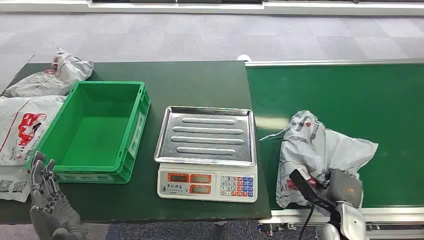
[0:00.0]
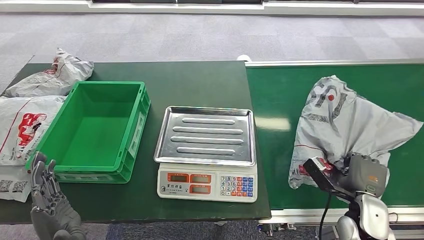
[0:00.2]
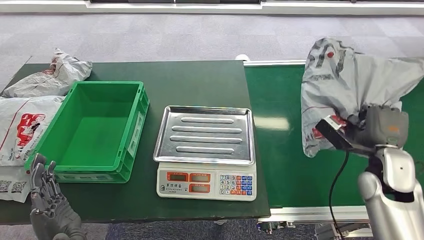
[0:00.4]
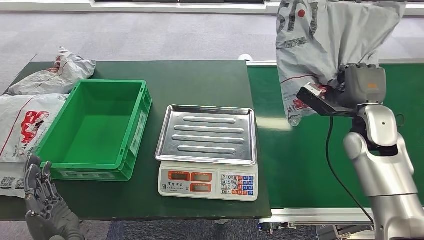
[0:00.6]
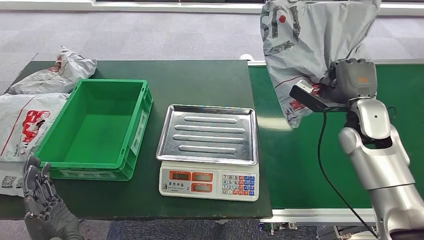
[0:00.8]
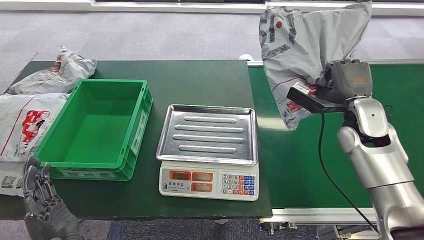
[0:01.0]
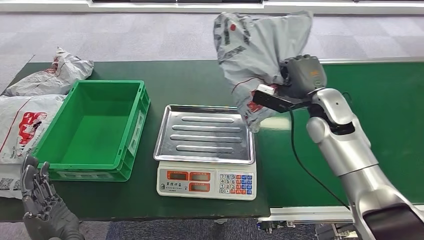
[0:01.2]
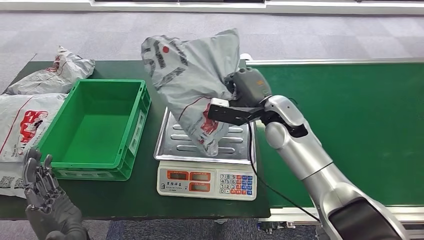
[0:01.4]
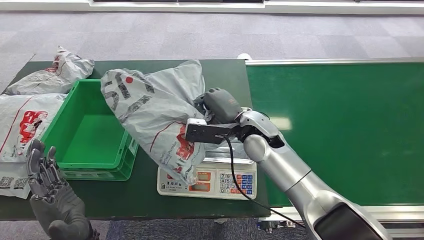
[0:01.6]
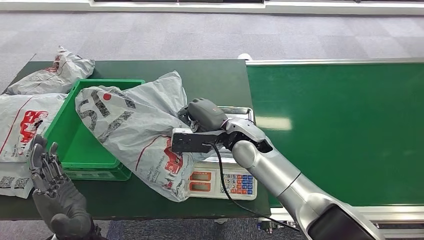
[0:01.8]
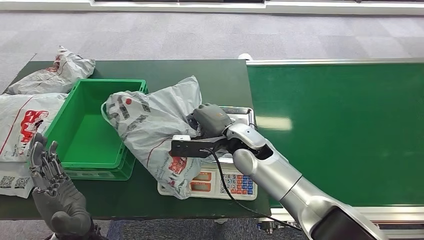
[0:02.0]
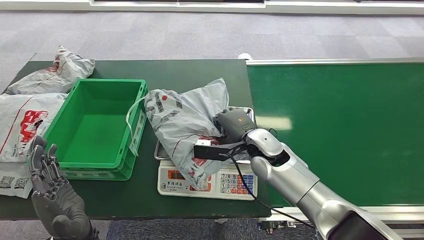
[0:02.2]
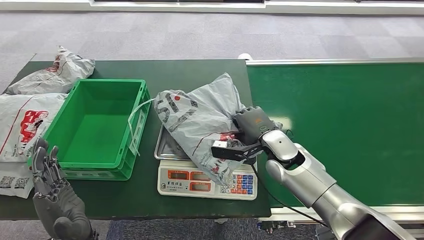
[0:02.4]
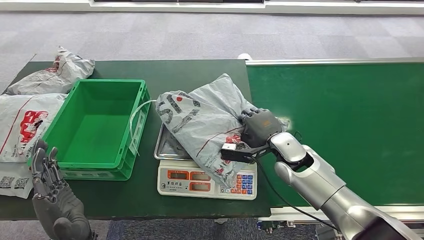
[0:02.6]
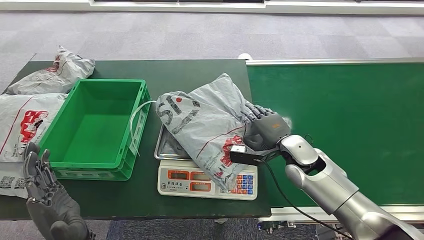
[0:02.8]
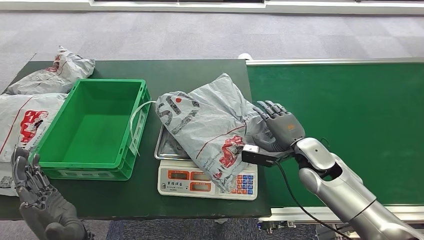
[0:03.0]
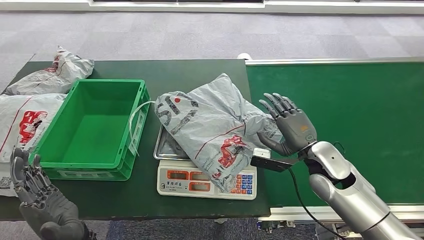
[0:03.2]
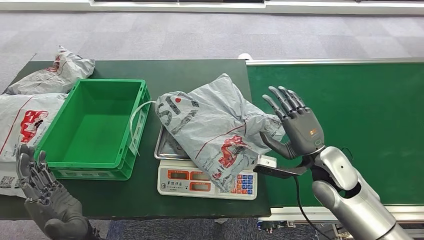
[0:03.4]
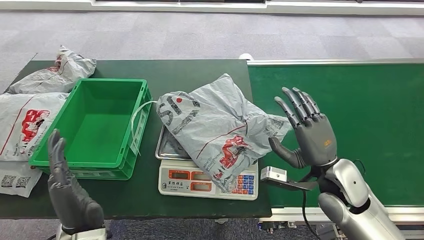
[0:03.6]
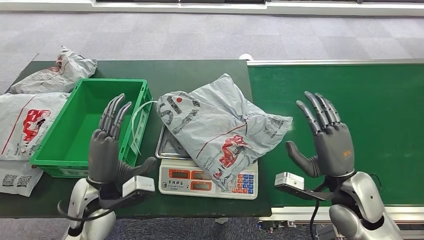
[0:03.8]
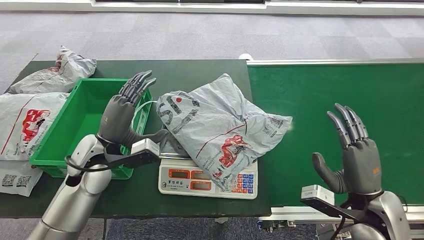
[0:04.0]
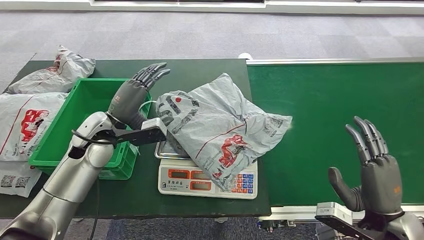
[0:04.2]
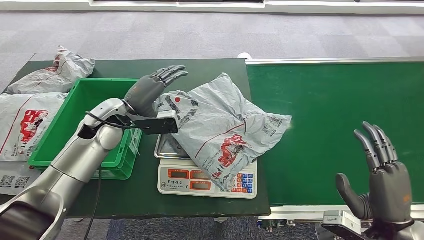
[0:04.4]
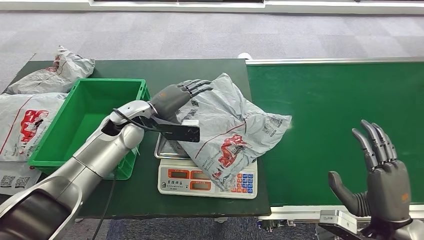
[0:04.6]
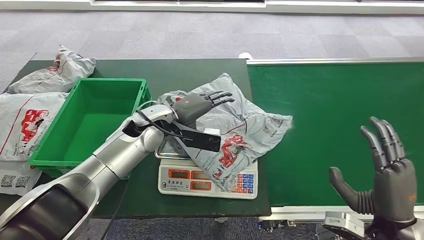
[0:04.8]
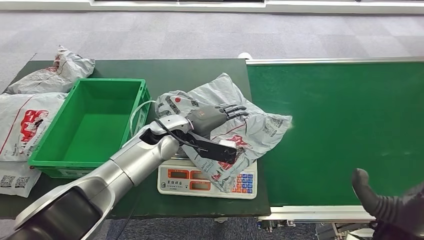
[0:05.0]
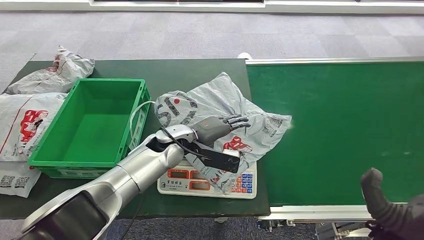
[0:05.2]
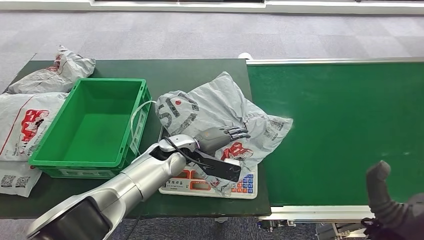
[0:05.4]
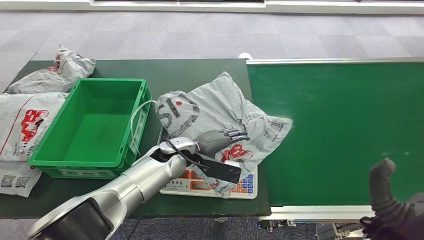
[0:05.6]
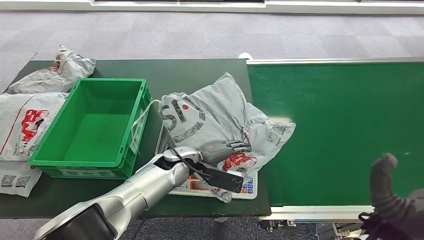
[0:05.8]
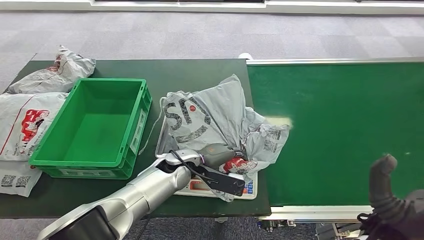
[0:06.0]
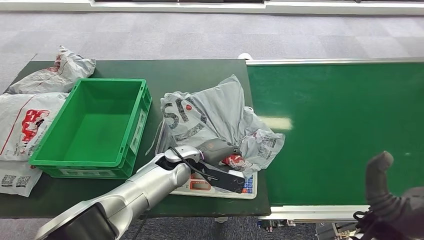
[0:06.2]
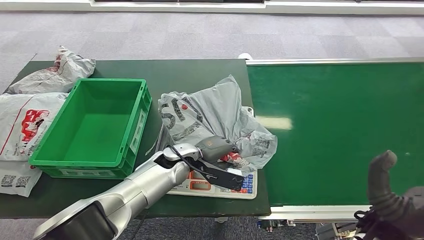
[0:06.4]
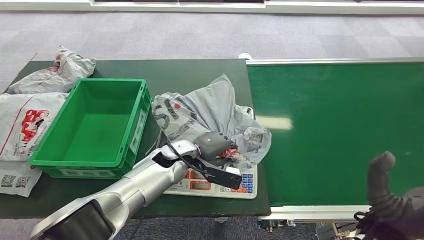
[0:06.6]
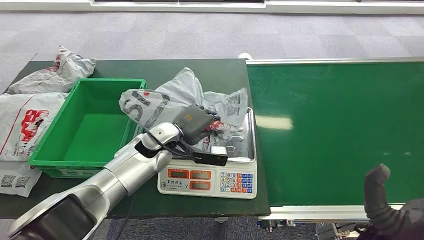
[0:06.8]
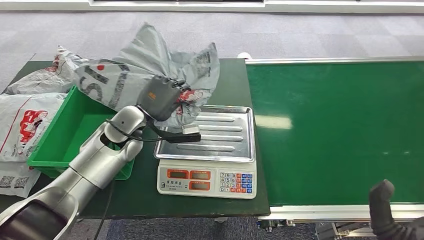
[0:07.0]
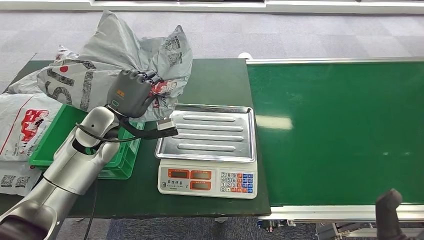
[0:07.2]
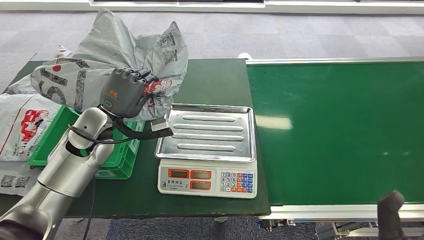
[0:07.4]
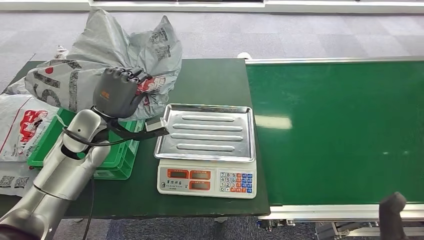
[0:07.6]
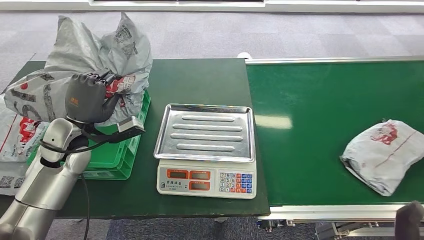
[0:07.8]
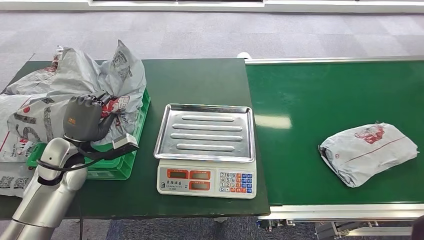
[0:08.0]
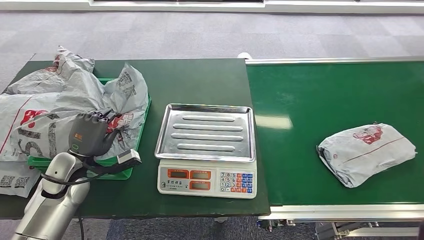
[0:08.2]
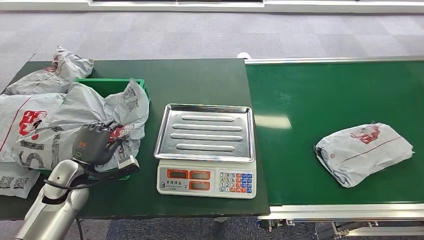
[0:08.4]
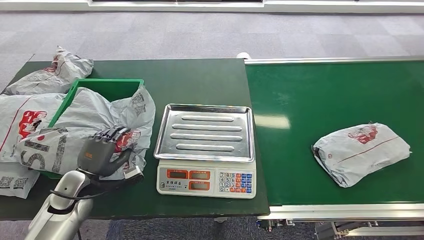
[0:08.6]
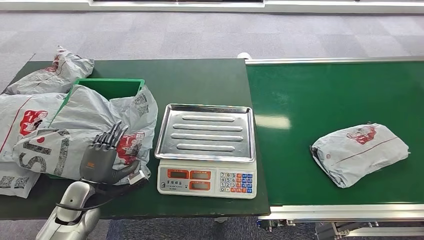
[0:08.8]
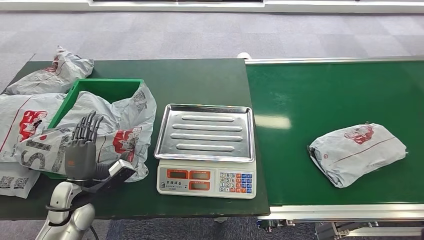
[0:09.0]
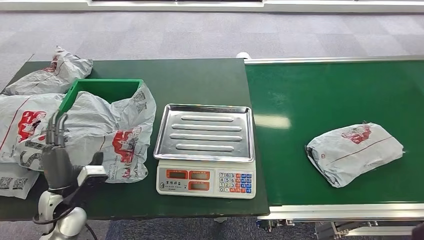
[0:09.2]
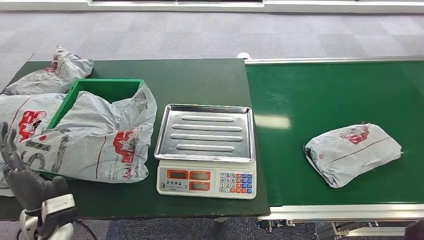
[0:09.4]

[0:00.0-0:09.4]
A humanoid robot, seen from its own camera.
Step, 0:00.0 to 0:00.6: Pick up the package from the conveyor belt.
Step, 0:01.0 to 0:03.6: Place the package onto the inbound machine.
Step, 0:03.8 to 0:07.2: Pick up the package from the inbound machine.
Step, 0:07.4 to 0:09.4: Place the package into the parcel locker.

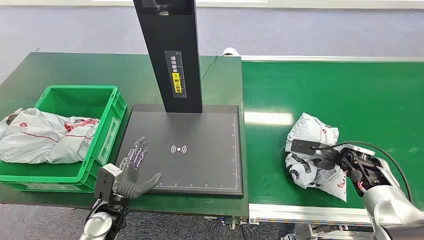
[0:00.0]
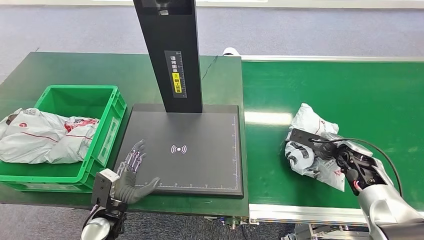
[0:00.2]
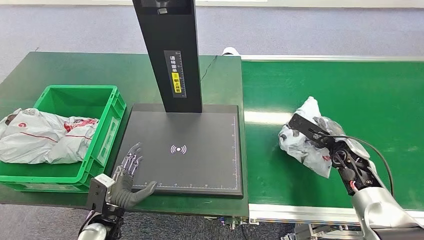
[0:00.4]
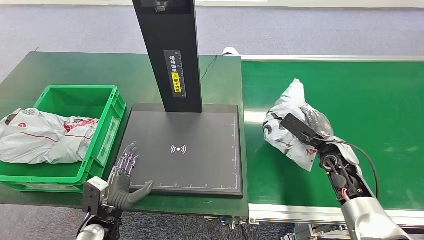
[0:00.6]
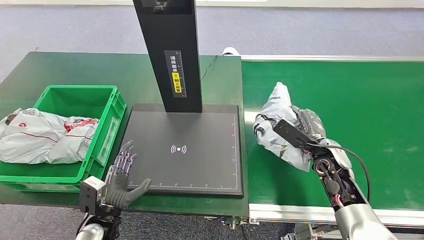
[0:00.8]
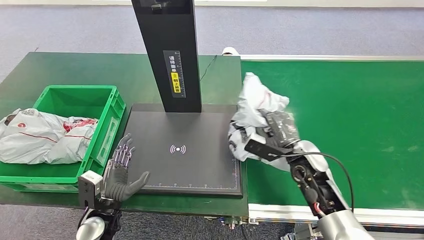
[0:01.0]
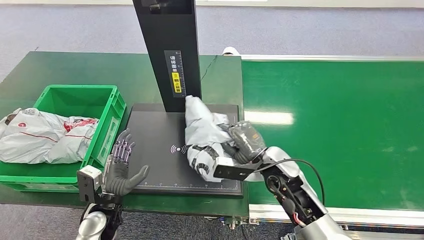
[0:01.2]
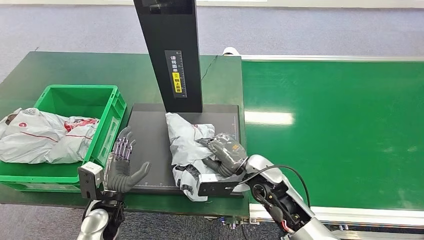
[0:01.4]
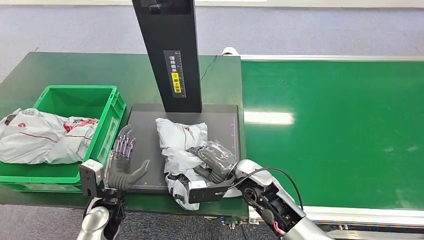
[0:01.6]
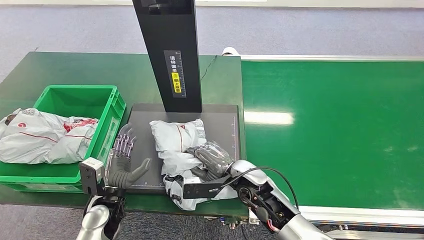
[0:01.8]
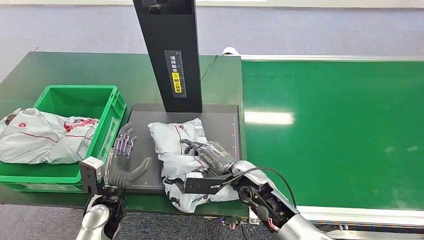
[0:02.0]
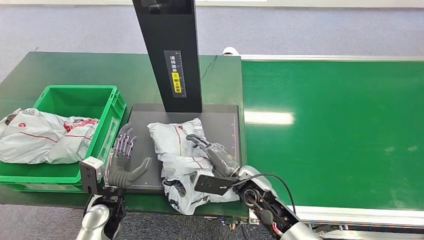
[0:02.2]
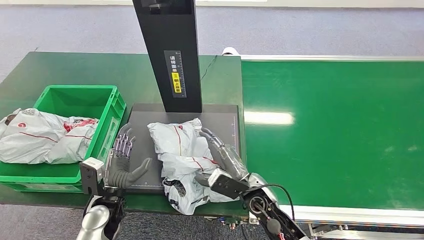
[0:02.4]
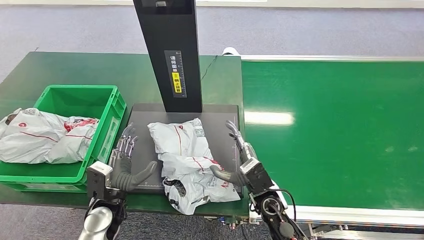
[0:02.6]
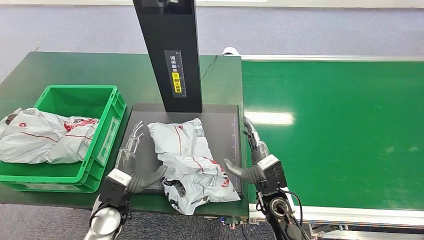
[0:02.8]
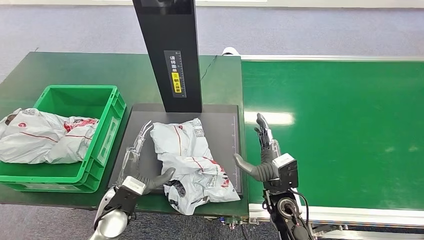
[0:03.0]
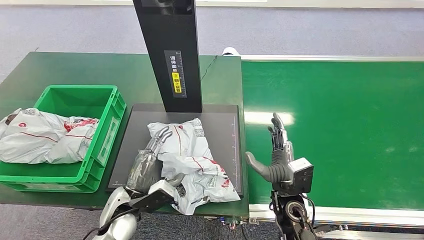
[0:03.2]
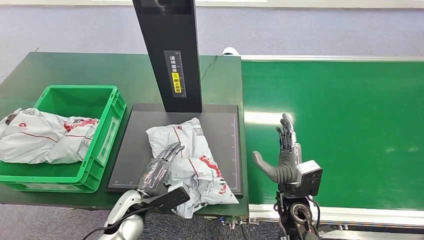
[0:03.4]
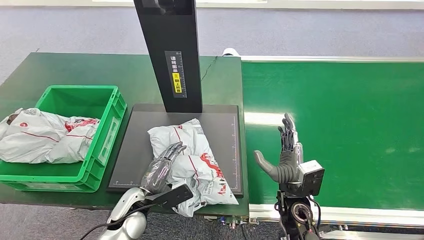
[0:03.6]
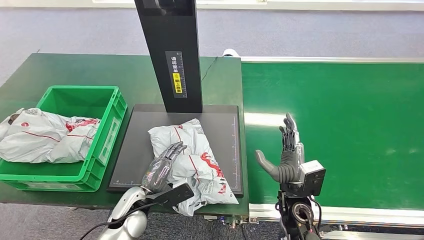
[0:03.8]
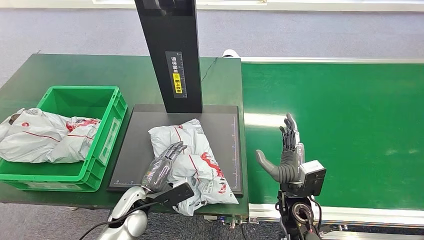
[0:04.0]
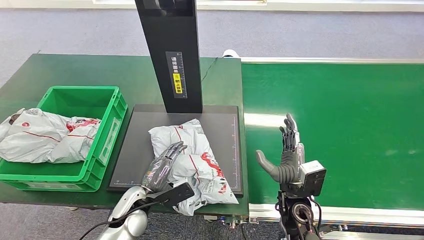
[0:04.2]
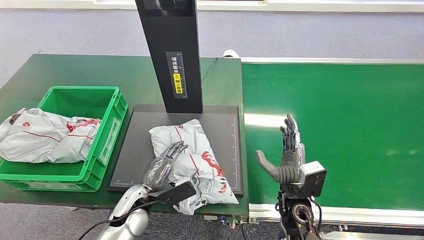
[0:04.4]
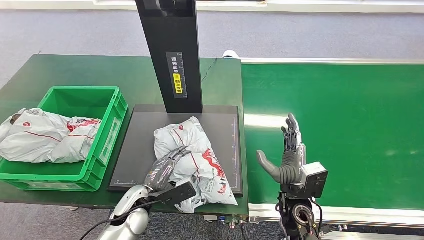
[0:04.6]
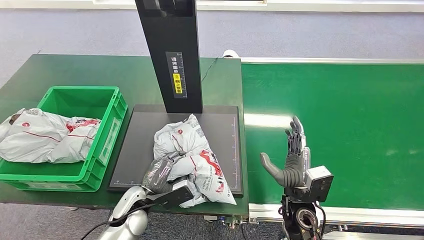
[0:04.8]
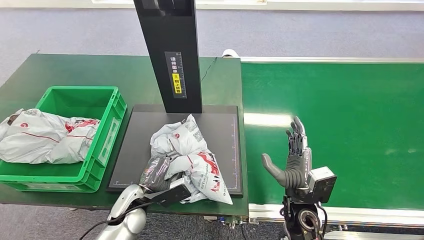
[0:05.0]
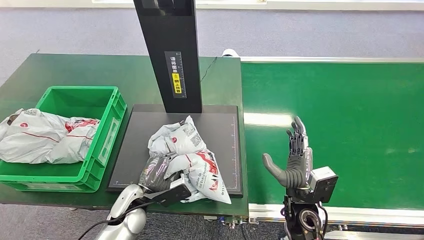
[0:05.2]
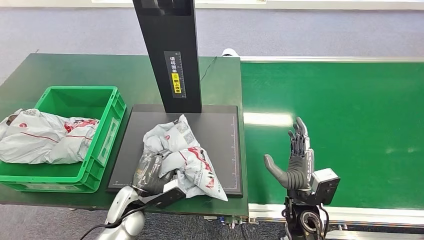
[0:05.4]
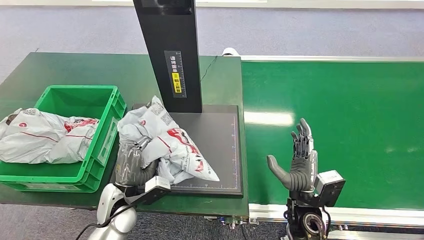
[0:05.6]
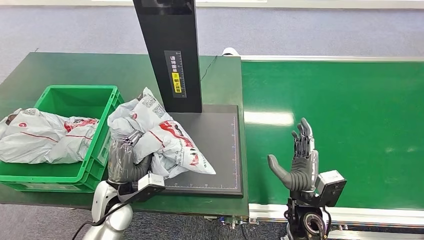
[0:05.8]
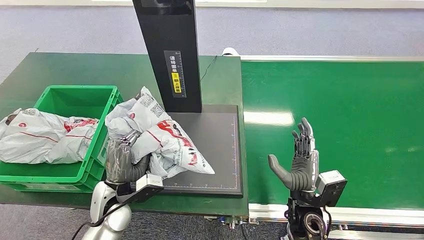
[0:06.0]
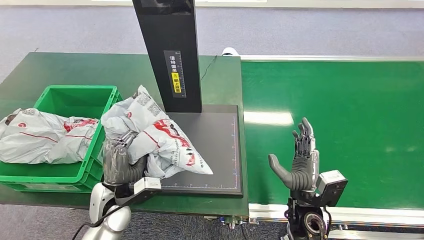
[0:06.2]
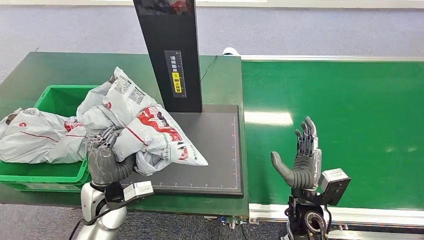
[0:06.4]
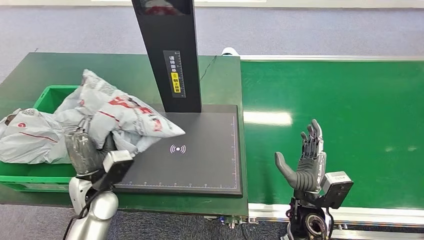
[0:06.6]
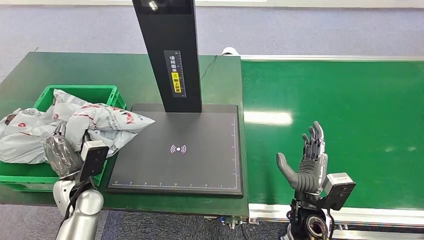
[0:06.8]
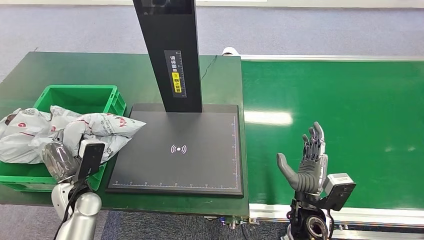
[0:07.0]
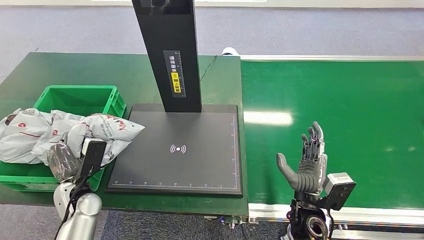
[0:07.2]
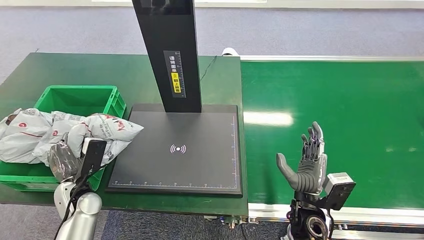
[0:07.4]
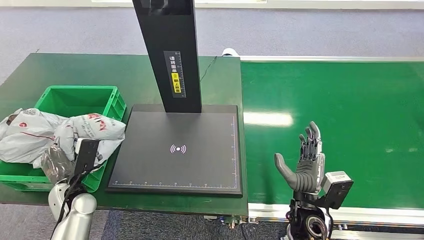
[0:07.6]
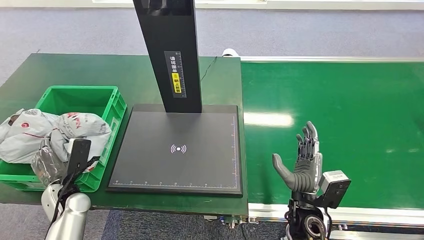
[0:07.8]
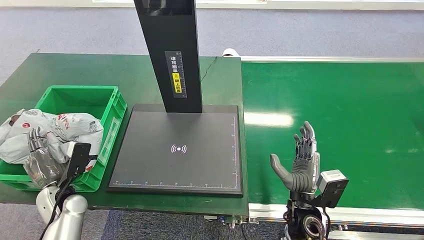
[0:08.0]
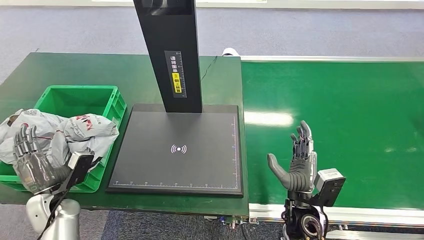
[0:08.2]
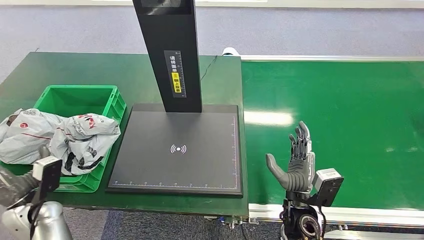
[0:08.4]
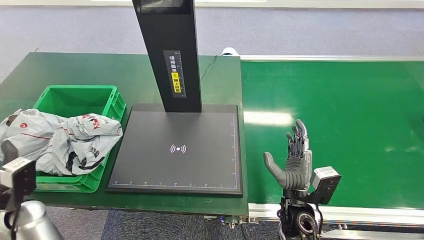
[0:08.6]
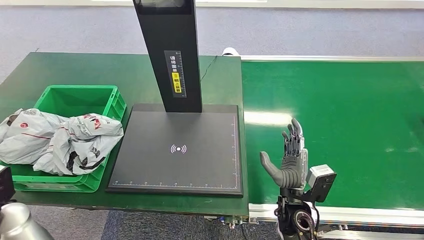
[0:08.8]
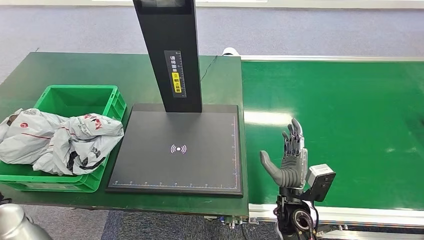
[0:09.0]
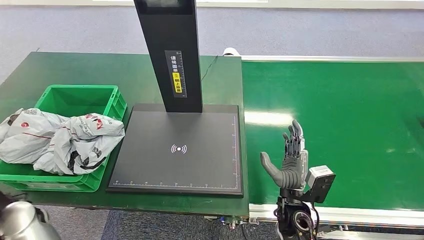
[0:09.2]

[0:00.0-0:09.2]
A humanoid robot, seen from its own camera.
Step, 0:00.0 to 0:00.4: Pick up the package from the conveyor belt.
0:01.6 to 0:03.0: The right hand goes some 5 cm to the right.
0:06.2 to 0:07.6: The left hand is displaced to the left by some 10 cm.
0:07.6 to 0:09.2: The left hand travels upward and backward by roughly 15 cm.
